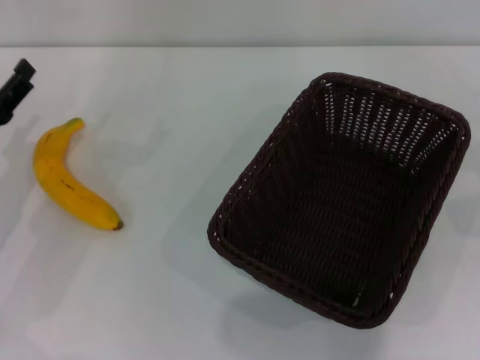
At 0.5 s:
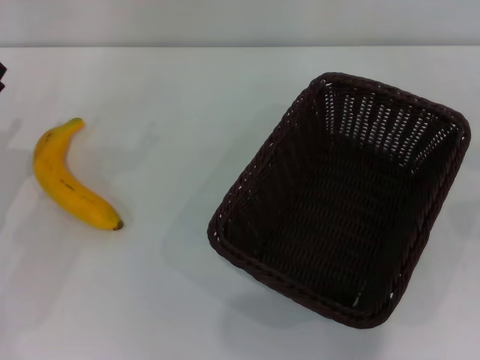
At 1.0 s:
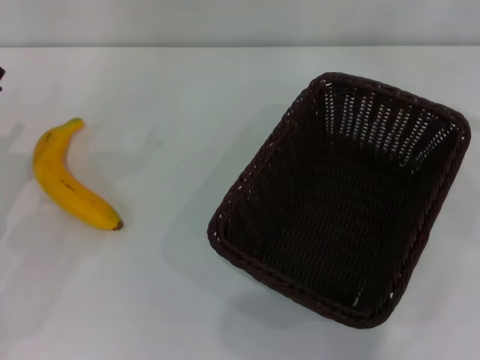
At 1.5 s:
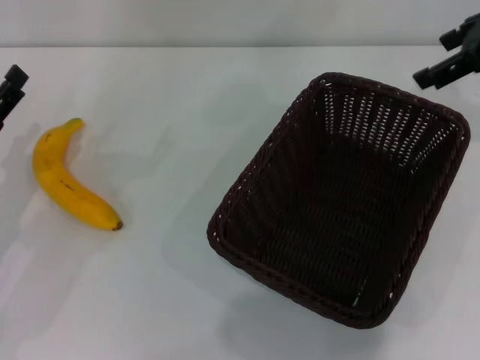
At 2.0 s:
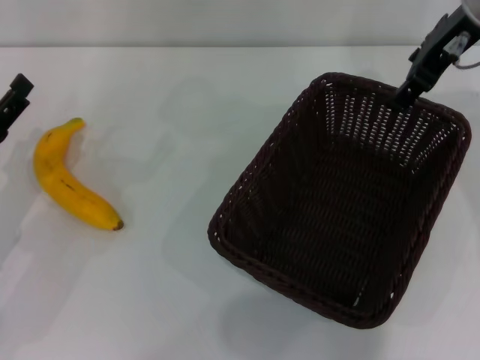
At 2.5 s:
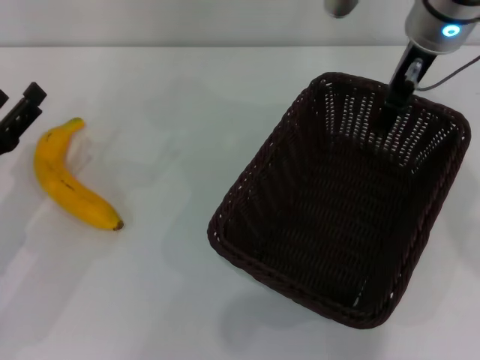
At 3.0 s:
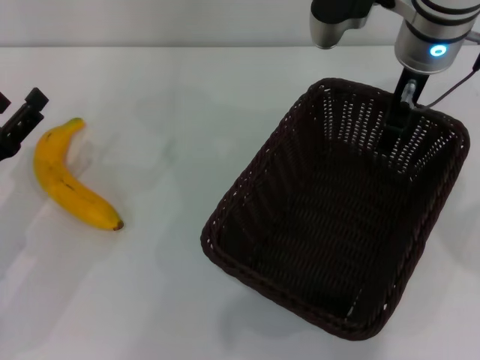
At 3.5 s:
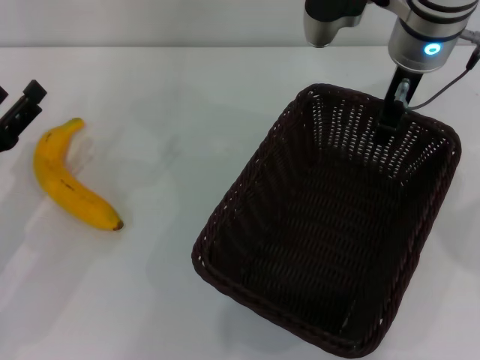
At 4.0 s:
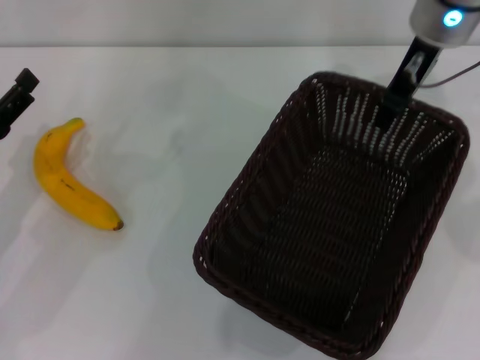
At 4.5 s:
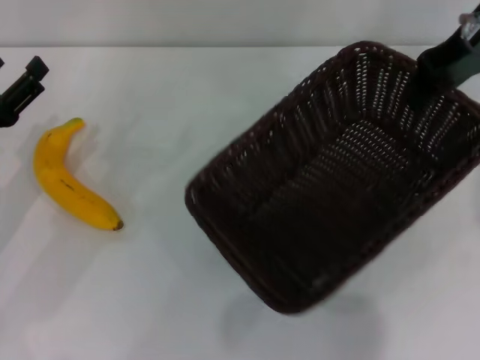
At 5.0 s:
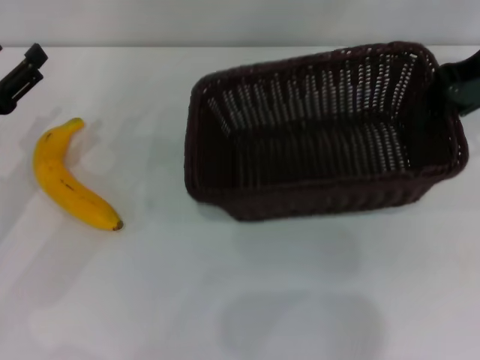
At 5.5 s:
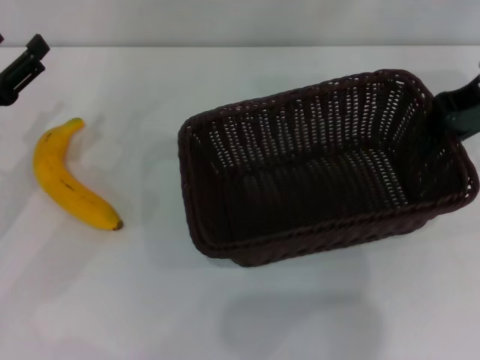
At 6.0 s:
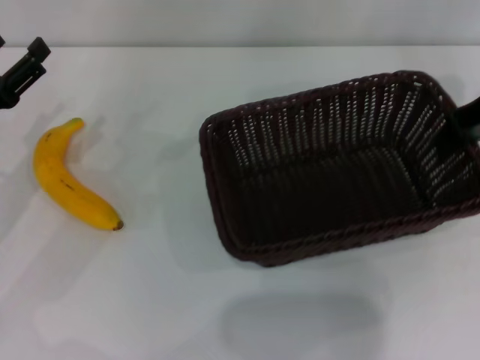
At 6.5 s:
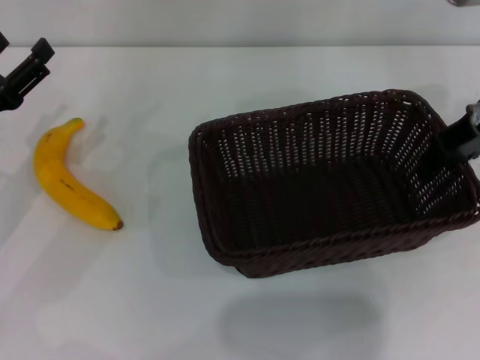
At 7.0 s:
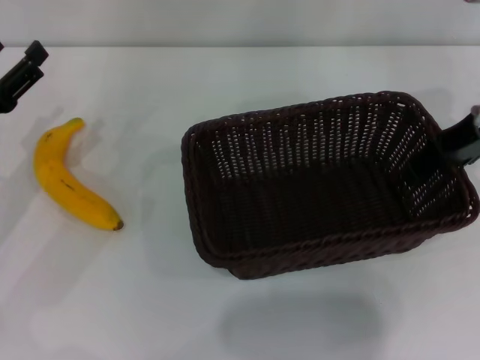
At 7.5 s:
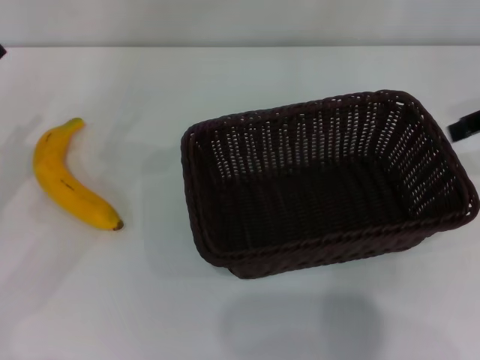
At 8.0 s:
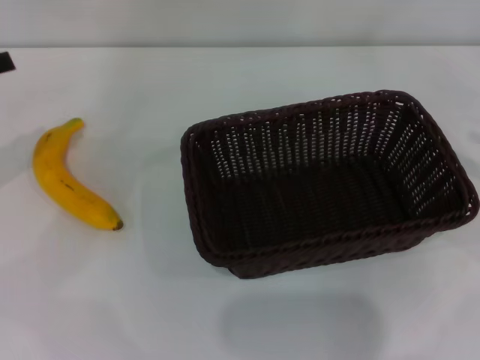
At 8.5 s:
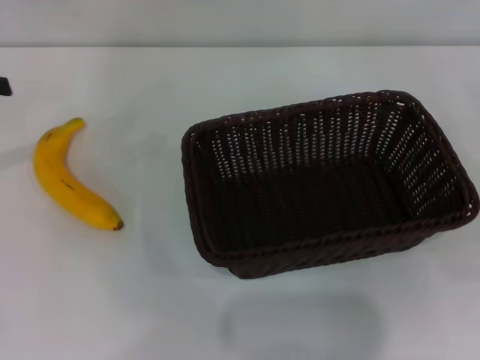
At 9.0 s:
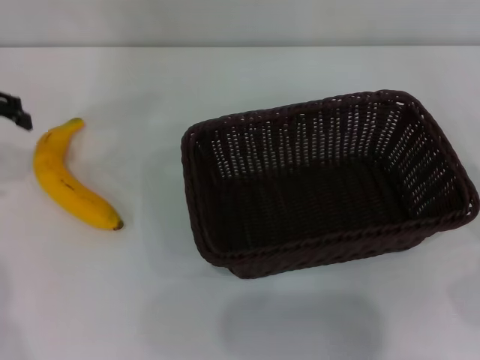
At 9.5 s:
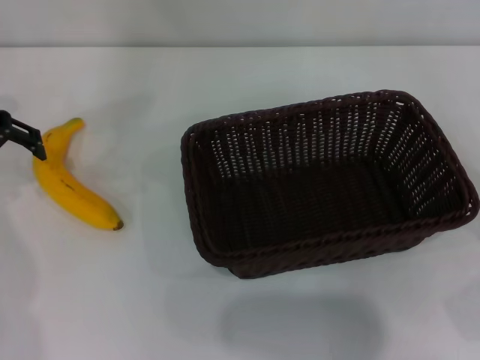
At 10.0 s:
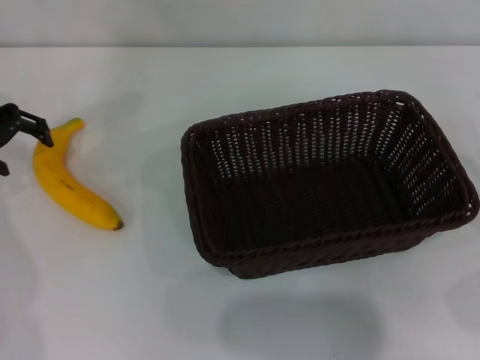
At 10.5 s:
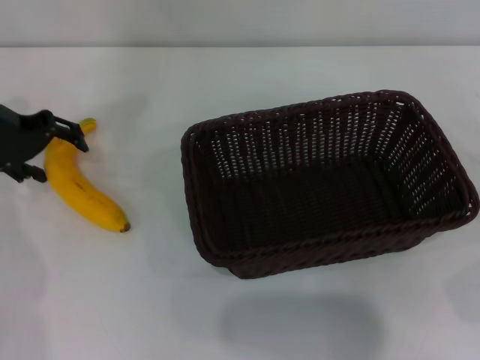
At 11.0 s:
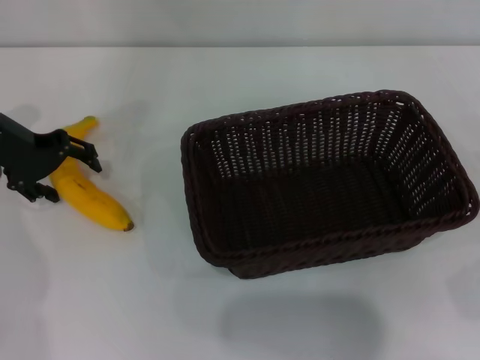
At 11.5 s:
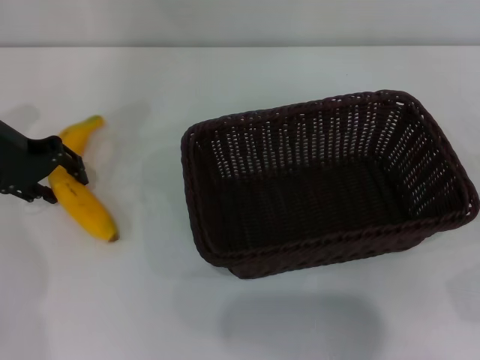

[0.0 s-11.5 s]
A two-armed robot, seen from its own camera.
Step, 0.0 to 4.0 s: Pick up the dark basket with the right gripper.
Step, 4.5 to 7.5 s: Place the dark basket in the center of view with the right gripper.
0.0 to 2.0 s: The right gripper goes roughly 30 cm to the left, upward and forward.
2.0 to 4.0 s: The right gripper closes its fingers.
4.0 to 6.0 s: The right gripper moves to the right, some 10 cm.
6.0 to 7.5 s: The right gripper goes roughly 5 cm to the right and backward, and opens its fingers.
7.5 to 9.5 s: The left gripper is displaced forward and upward by some 15 cm.
9.5 to 11.5 s: The left gripper shifts some 5 cm downward.

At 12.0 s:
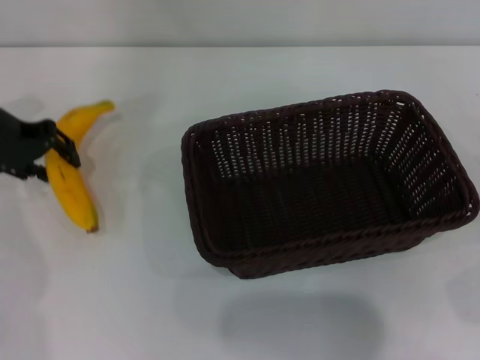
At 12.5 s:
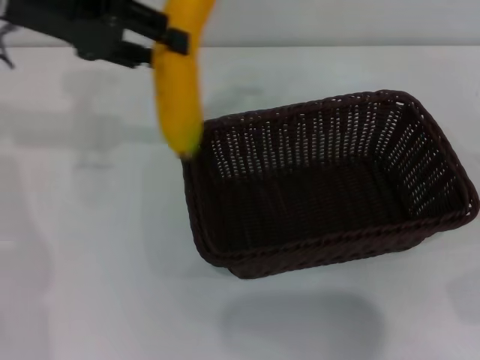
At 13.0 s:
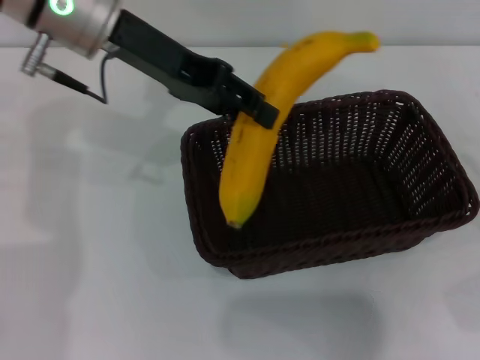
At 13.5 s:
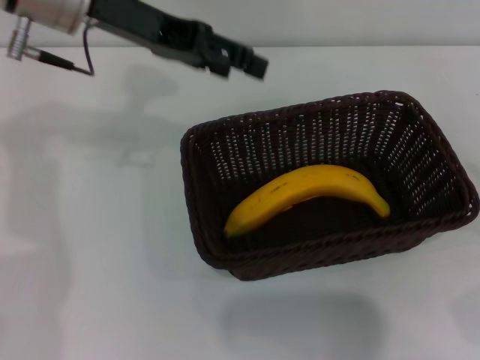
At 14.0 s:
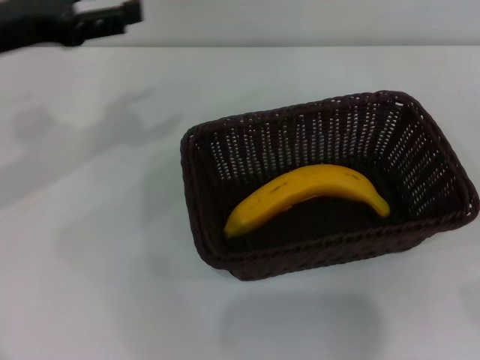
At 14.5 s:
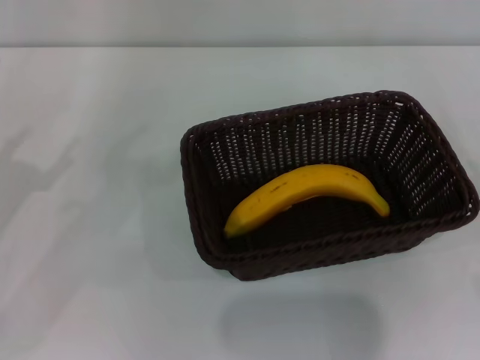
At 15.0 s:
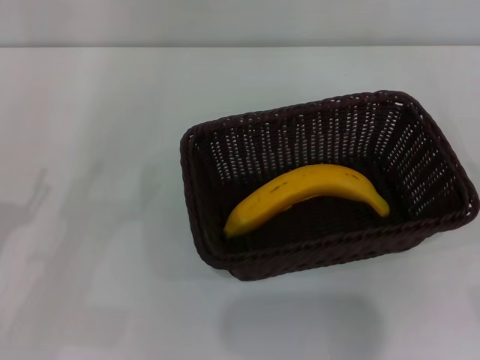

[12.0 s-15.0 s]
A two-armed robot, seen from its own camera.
Step, 12.5 to 13.0 s: Place the banana into the dark basket with the left gripper.
12.0 to 13.5 s: The left gripper is displaced to the right and upward by approximately 15 cm.
13.5 to 15.0 s: The left gripper moves backward, downward and to the left, some 35 cm, and opens its fingers.
